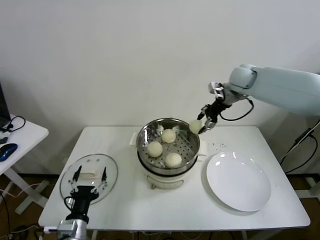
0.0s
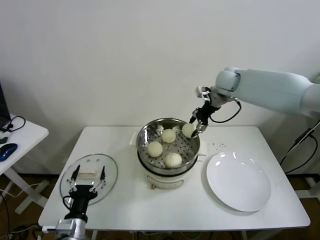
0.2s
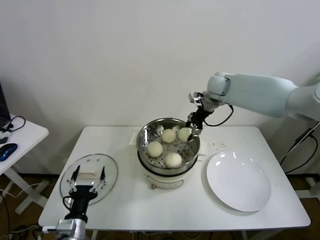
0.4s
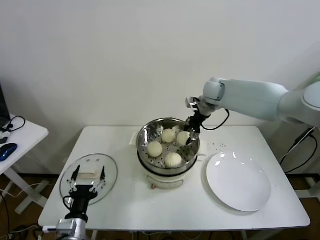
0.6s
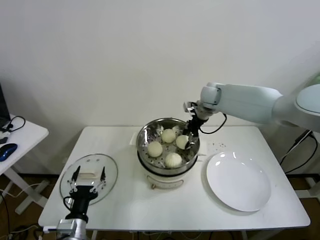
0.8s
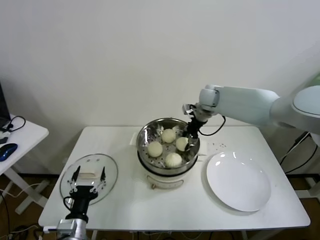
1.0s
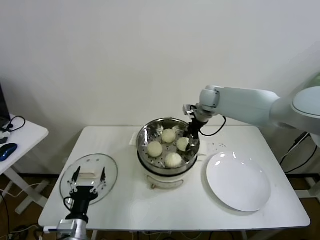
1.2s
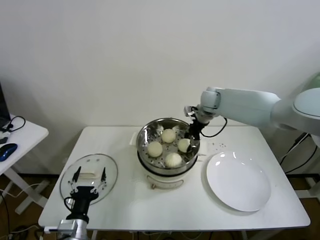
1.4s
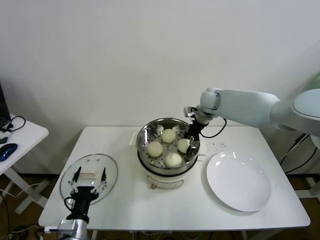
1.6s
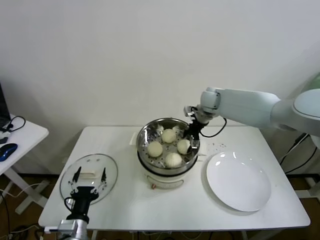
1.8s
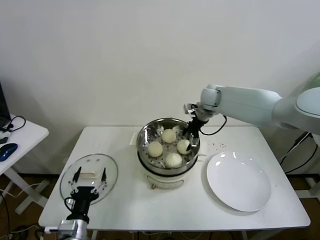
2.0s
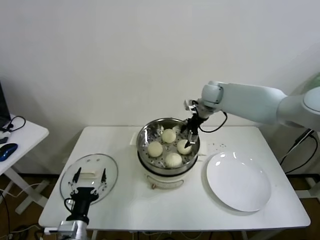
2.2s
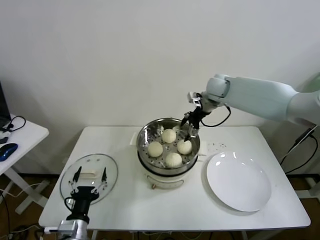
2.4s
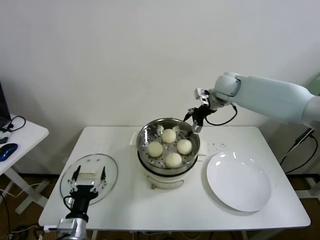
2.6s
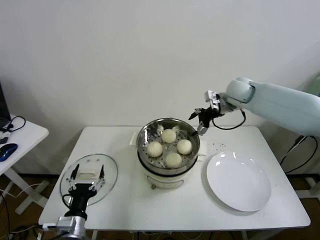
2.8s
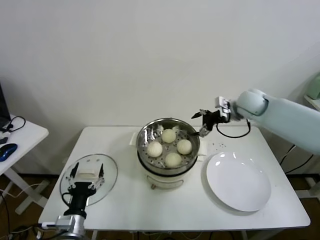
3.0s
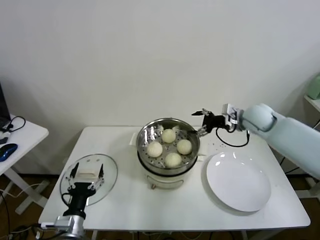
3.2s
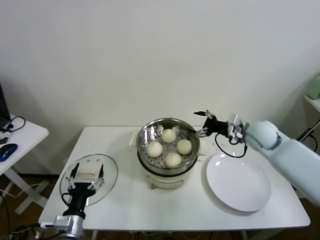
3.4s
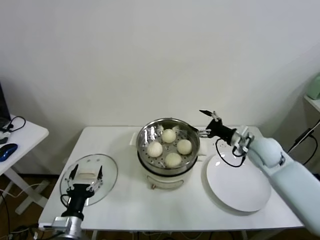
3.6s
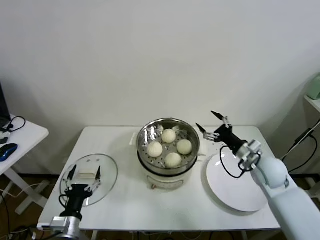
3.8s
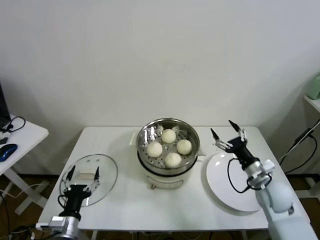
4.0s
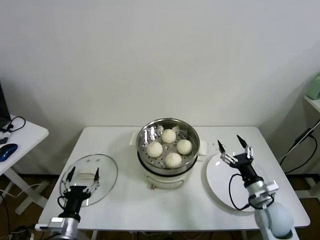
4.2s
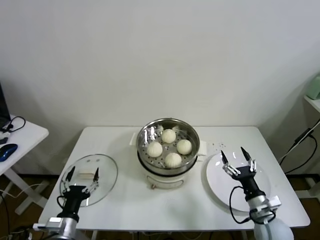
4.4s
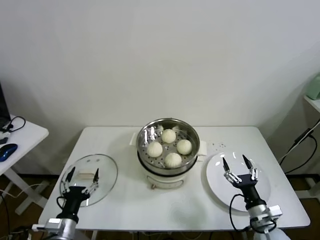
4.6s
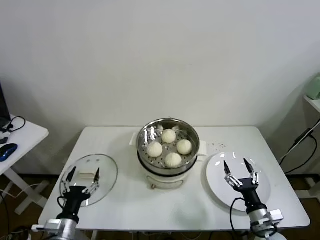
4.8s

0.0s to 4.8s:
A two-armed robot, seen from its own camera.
Task of the whole recording: take steamed baozi put them in steamer.
Step, 0.0s to 2.0s: Place the baozi on the steamer with right gripper.
0.0s to 1.6s: The right gripper moves downward and to the left, some 15 cm.
1.6s to 3.2s: The right gripper shifts about 15 cm to the right and backward, and opens up.
3.2s to 4.8s: The right gripper shifts approximately 40 cm backward and downward.
